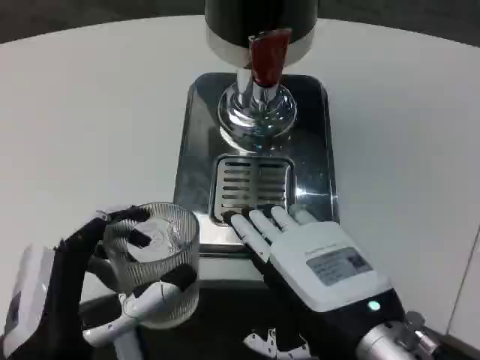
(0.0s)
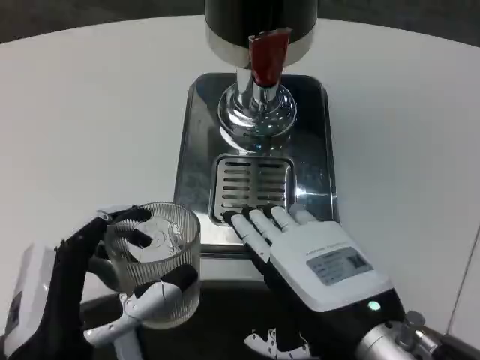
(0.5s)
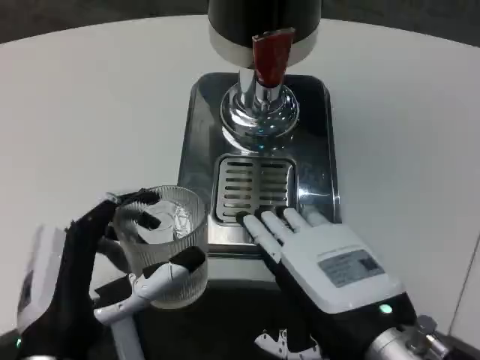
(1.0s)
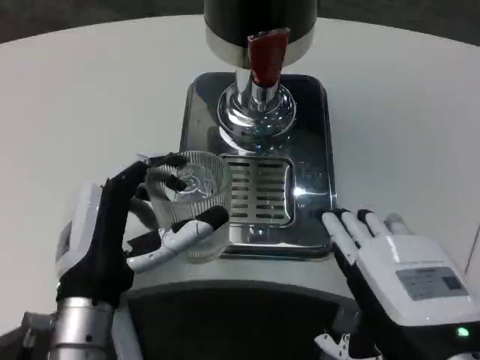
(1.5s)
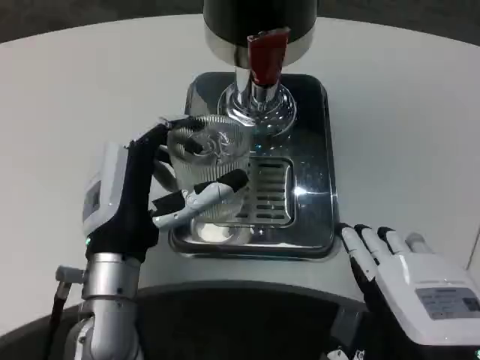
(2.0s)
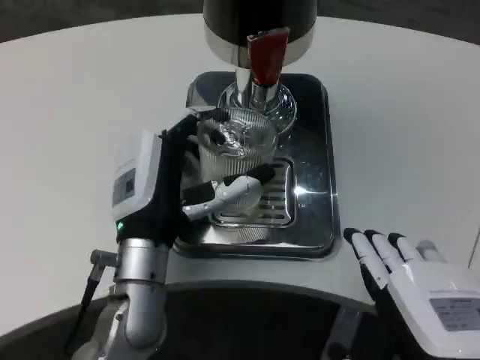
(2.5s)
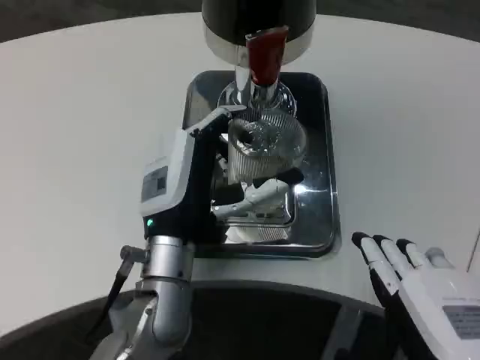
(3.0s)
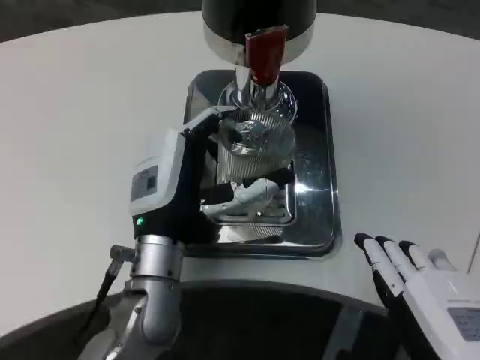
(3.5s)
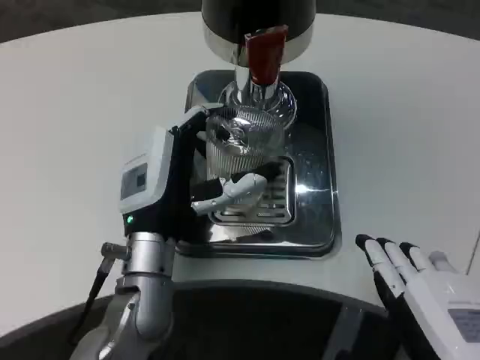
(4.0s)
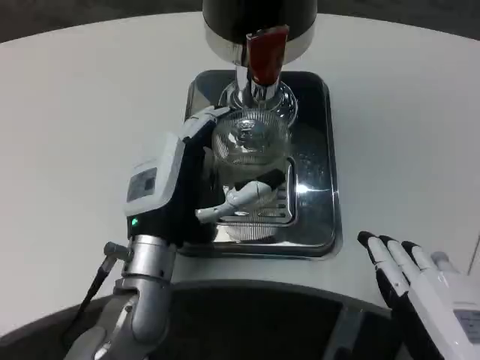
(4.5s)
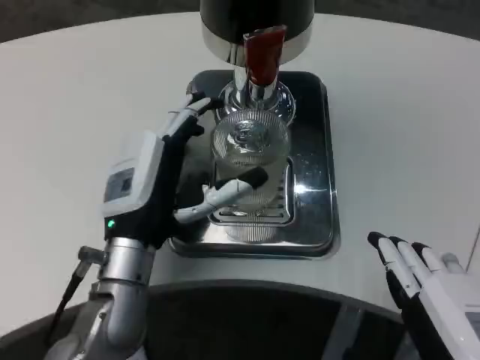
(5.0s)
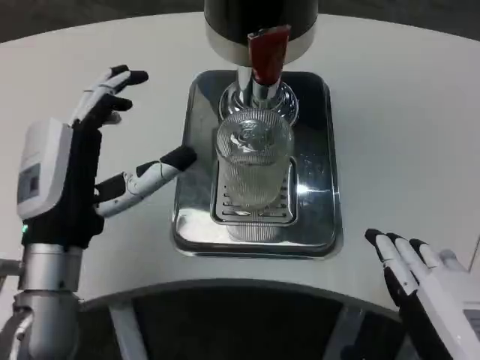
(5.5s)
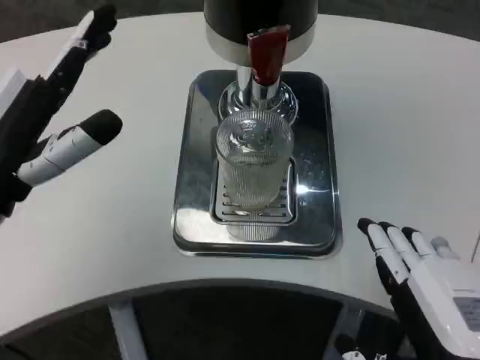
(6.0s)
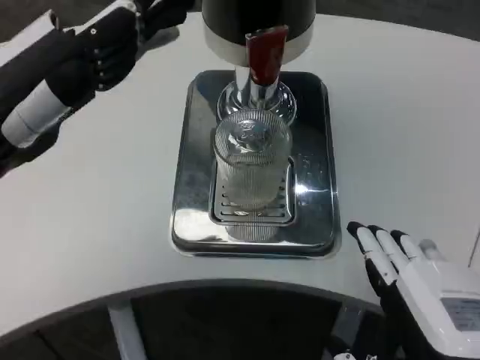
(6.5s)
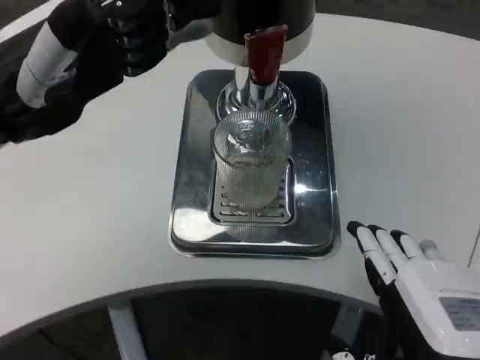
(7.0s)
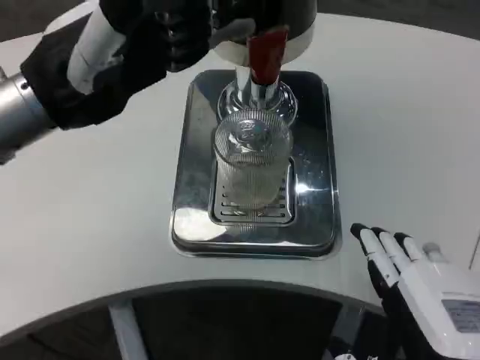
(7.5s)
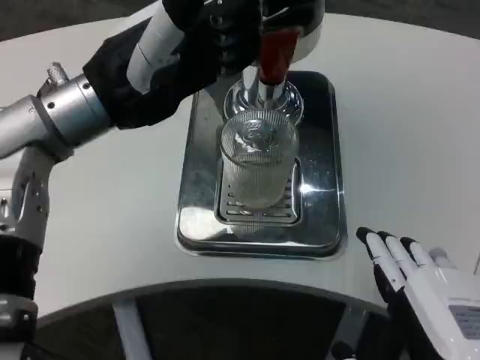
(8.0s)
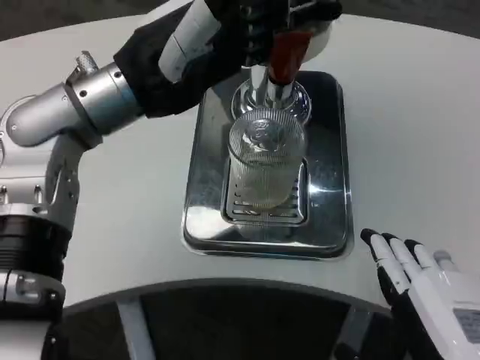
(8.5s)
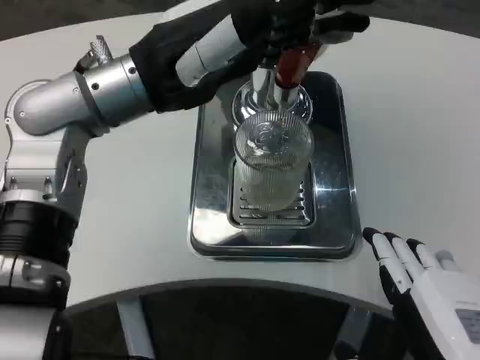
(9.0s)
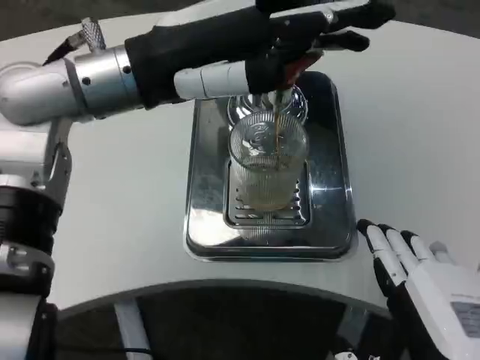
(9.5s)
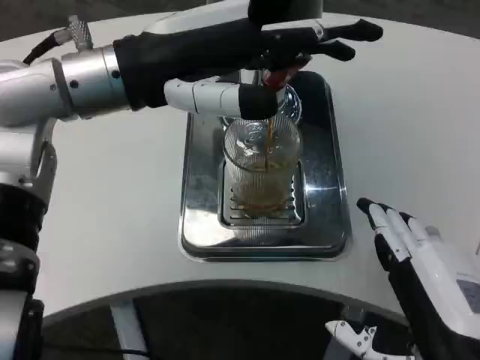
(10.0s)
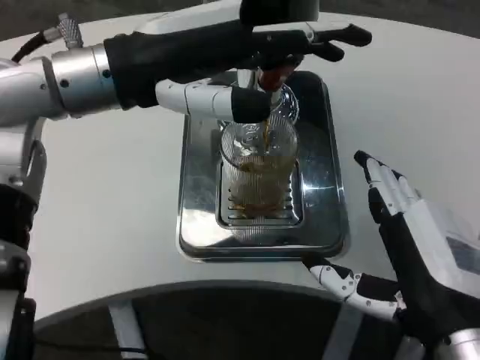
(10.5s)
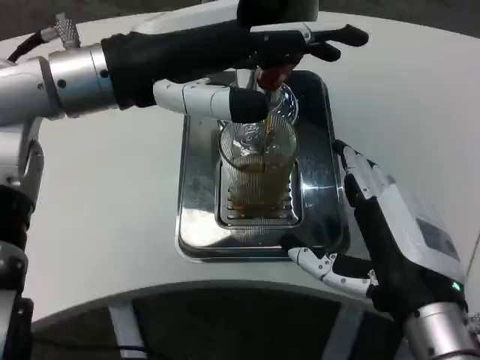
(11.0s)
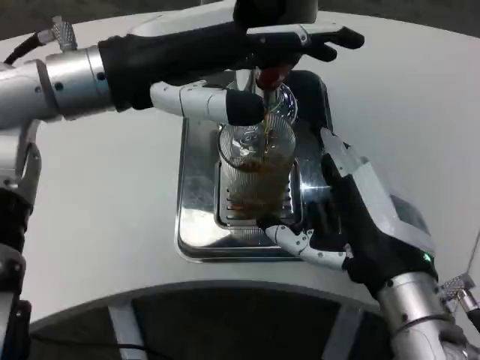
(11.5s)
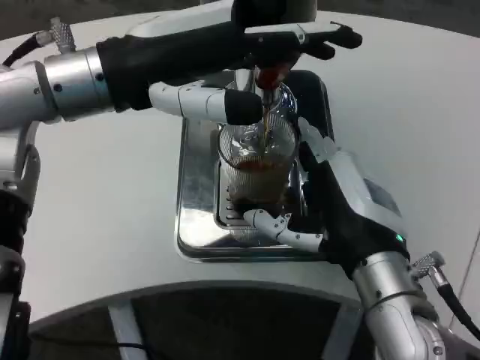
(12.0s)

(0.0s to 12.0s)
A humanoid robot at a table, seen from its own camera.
Task of the whole recording: Grasp the cup under the faucet to collect the drink, then remove the cup.
0.0s - 2.0s: The left hand shifts some 10 cm forward, while the right hand heads backward, covering roughly 5 cm.
4.0s - 6.0s: The left hand moves to the left and upward, about 20 cm.
6.0s - 8.0s: The left hand goes approximately 15 cm forward, upward and to the right.
10.0s - 12.0s: The right hand shifts about 10 cm forward.

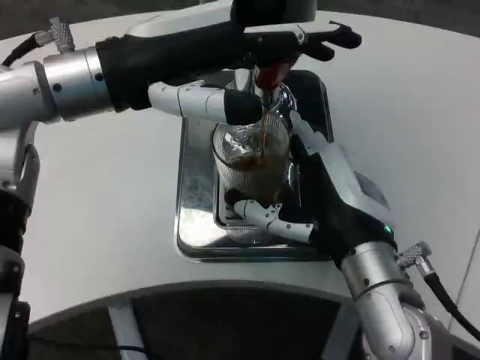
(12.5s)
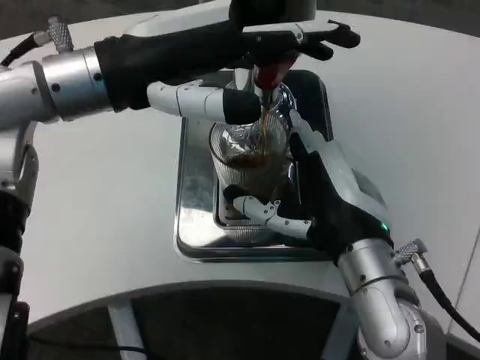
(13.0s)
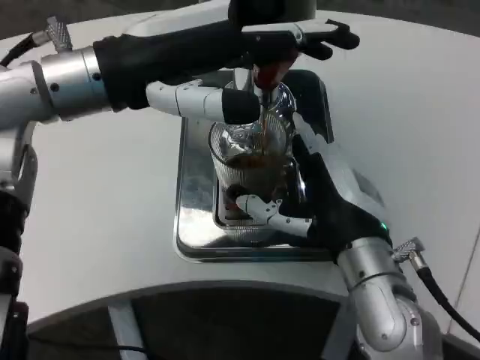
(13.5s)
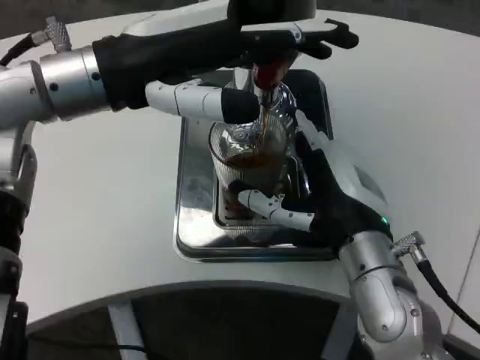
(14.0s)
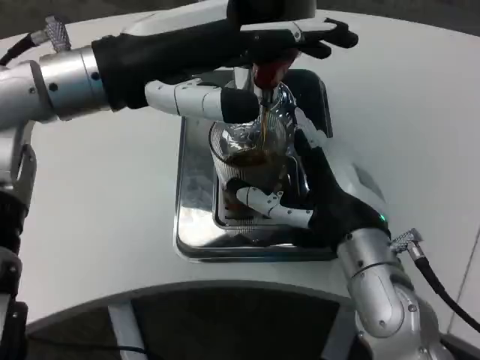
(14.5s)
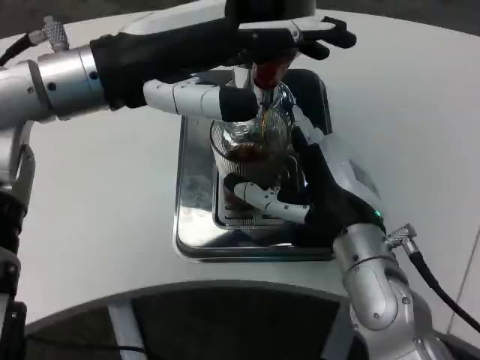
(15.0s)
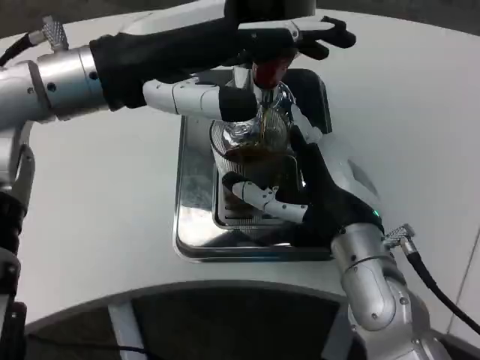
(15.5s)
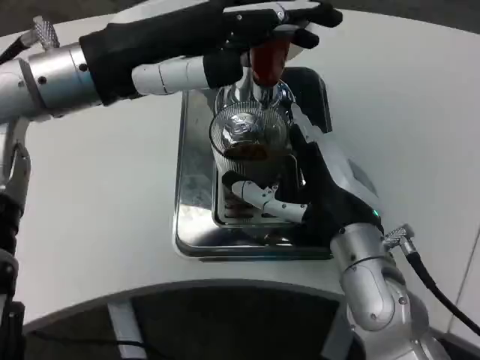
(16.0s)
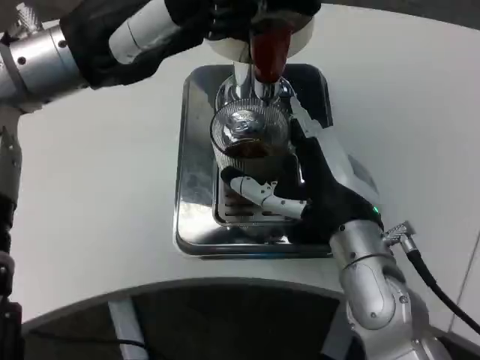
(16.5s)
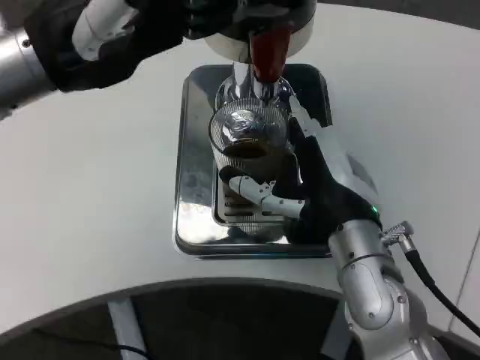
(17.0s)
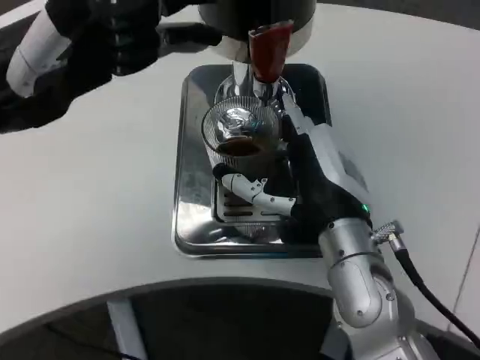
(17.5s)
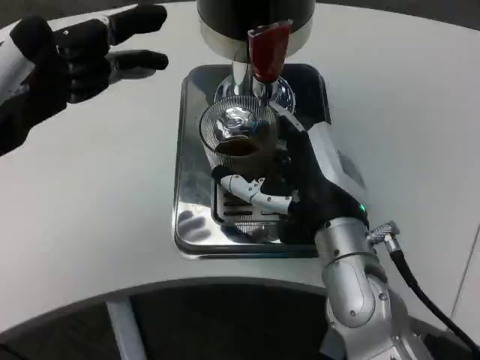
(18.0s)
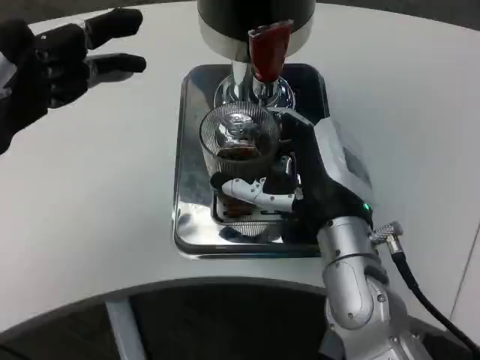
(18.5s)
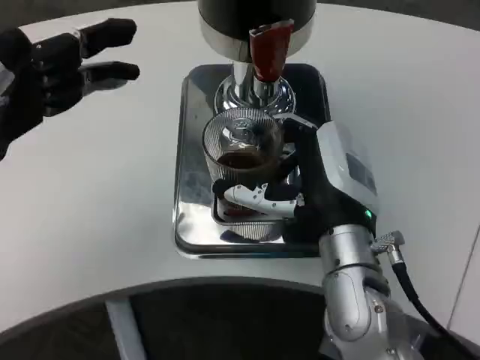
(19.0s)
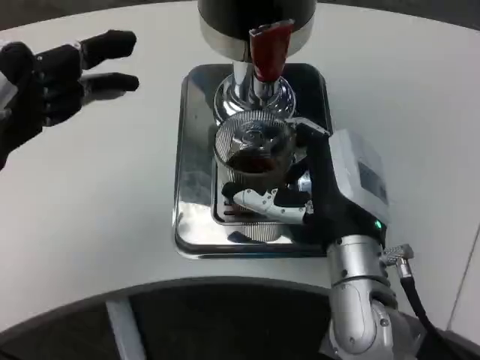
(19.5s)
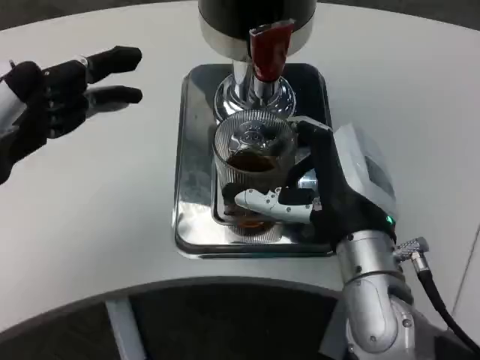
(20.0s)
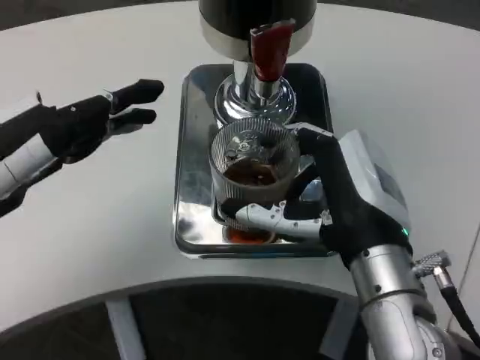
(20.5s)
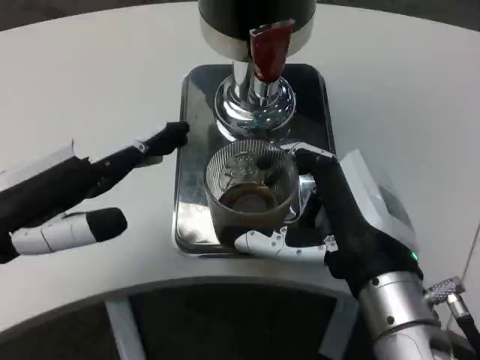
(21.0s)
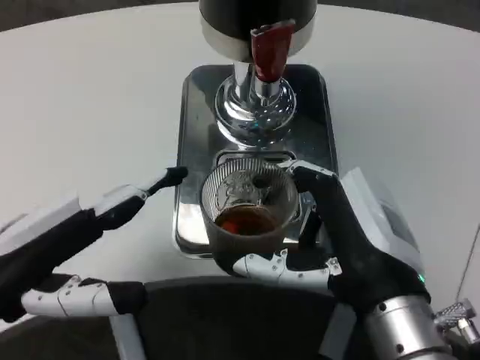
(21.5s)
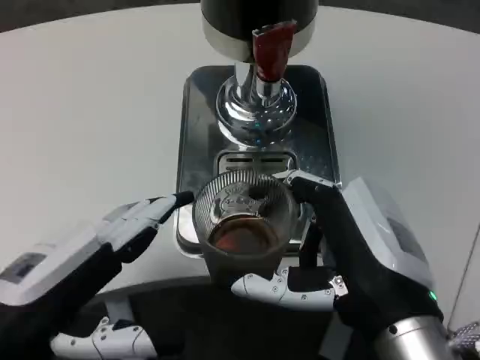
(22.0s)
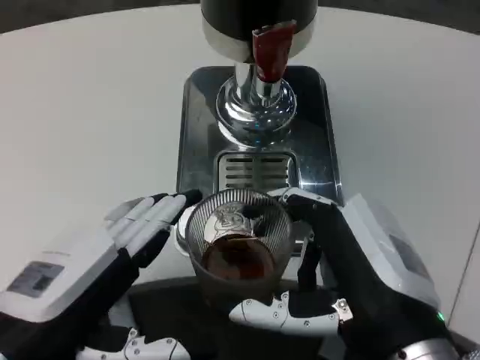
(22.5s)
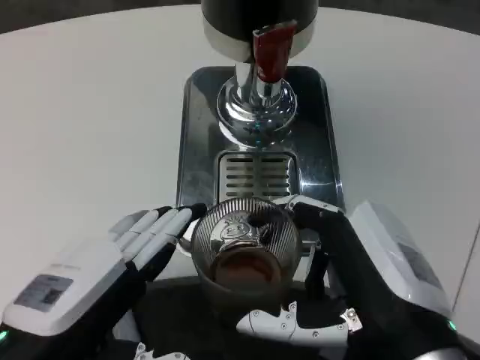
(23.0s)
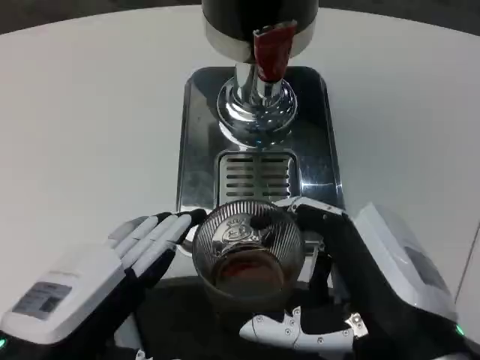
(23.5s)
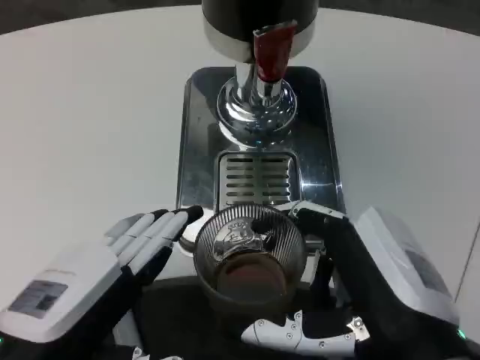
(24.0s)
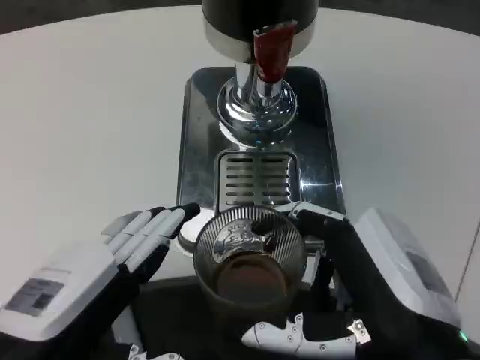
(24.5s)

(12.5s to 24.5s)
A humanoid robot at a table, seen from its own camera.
Task of the whole recording: Grasp the cup under the faucet to collect the drink, then remove the cup.
12.5s - 14.5s: The hands stay close to where they were, moving slightly.
16.5s - 18.5s: The left hand moves to the left, backward and downward, roughly 15 cm.
18.5s - 20.5s: The right hand is displaced backward by roughly 5 cm.
20.5s - 22.5s: The right hand shifts some 10 cm backward. Meanwhile the left hand goes about 15 cm backward, to the right and downward.
22.5s - 24.5s: The hands move only a little.

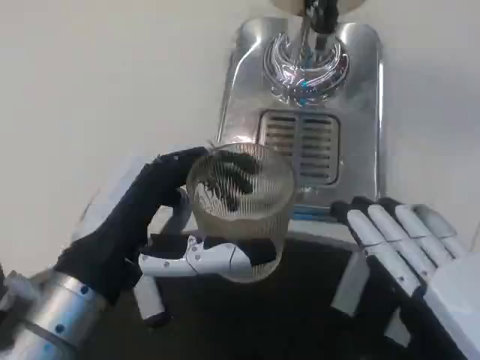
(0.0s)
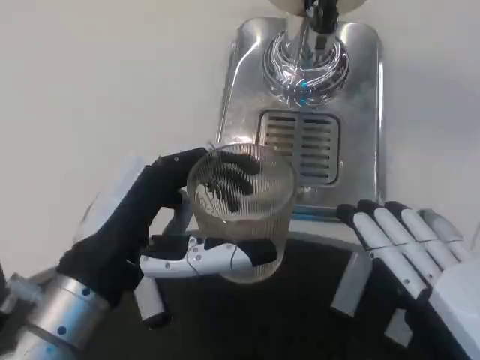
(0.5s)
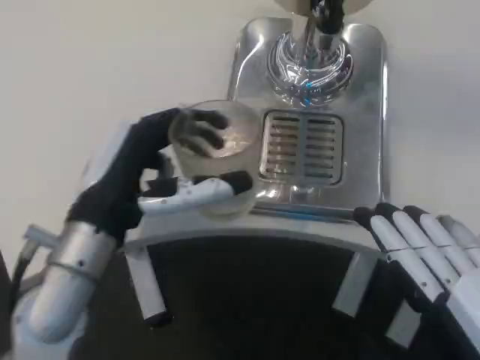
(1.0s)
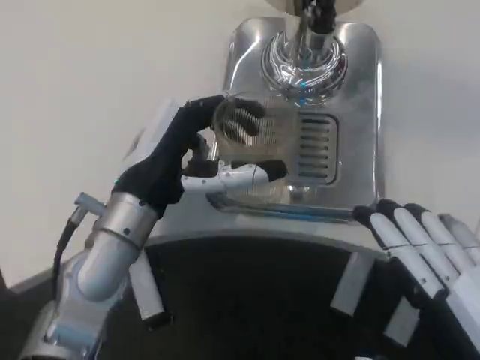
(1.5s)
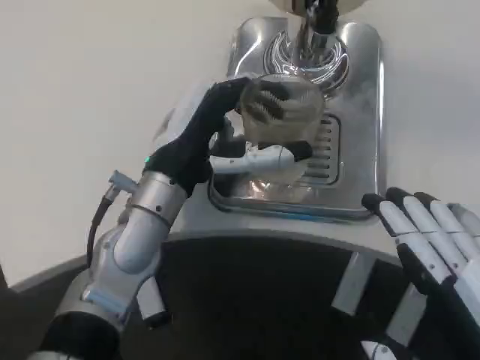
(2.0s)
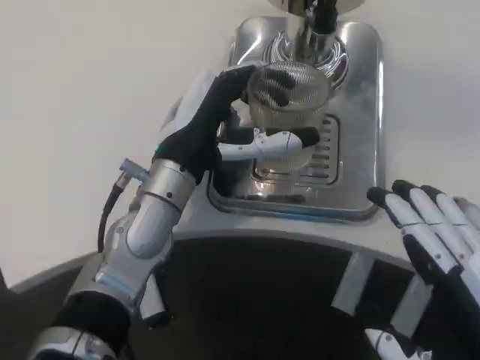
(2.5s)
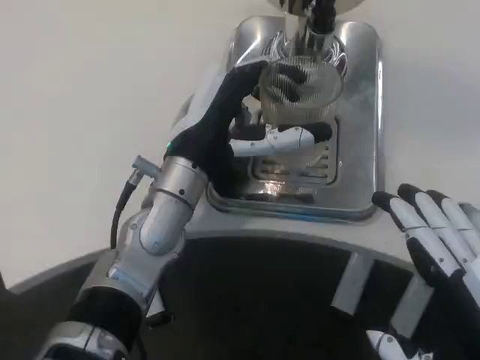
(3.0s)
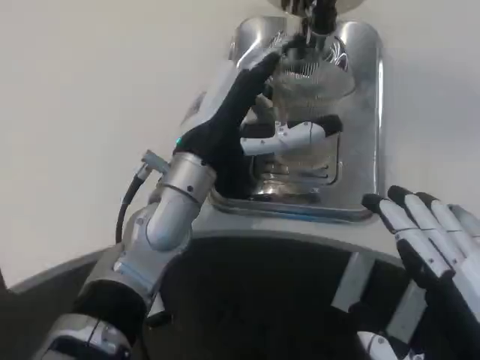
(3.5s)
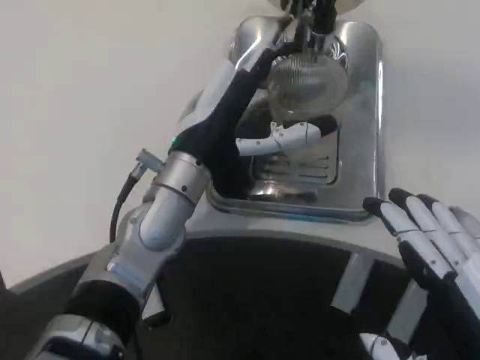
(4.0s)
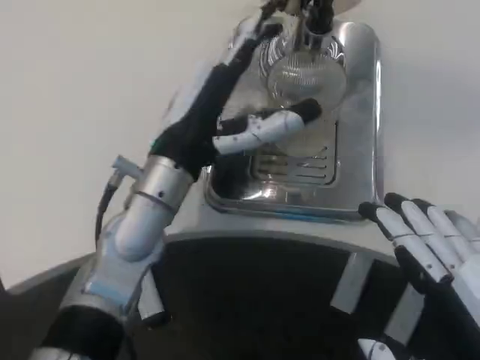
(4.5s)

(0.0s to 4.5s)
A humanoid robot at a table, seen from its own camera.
Task of the whole recording: Grasp the cup under the faucet to collect the drink, then remove the cup.
0.0s - 2.0s: The left hand travels forward by about 15 cm.
2.0s - 4.5s: The hands make only small movements.
